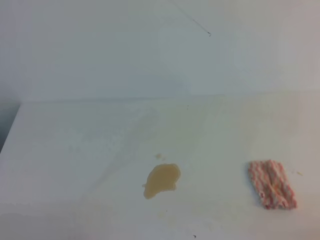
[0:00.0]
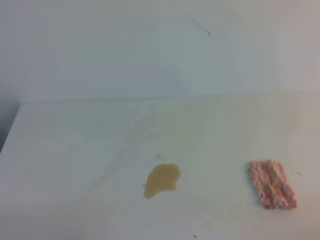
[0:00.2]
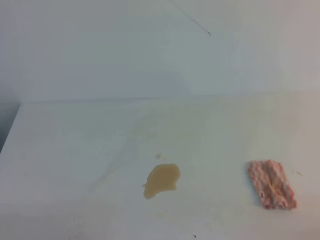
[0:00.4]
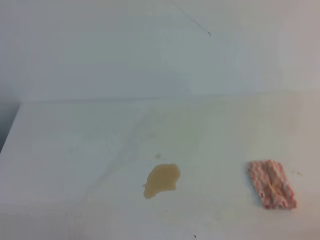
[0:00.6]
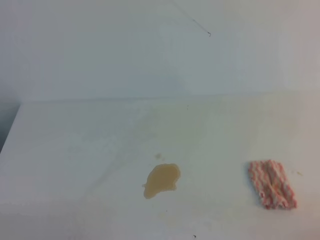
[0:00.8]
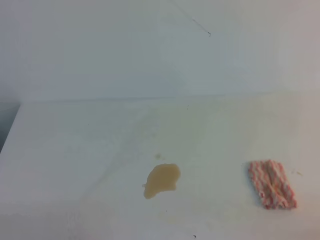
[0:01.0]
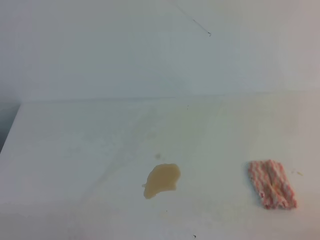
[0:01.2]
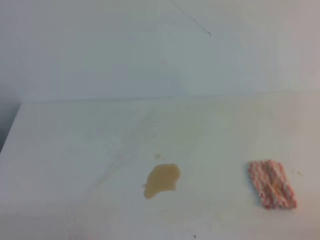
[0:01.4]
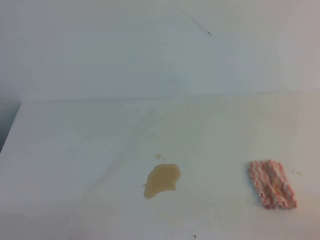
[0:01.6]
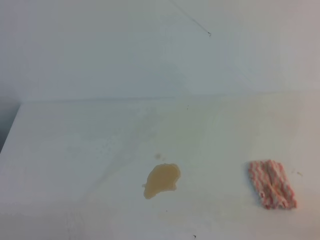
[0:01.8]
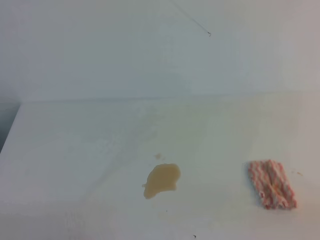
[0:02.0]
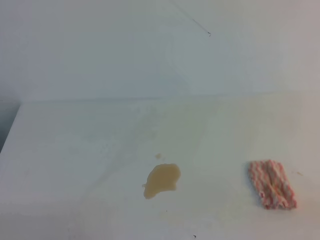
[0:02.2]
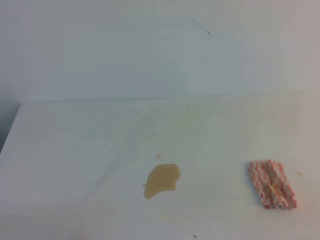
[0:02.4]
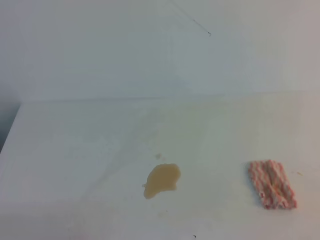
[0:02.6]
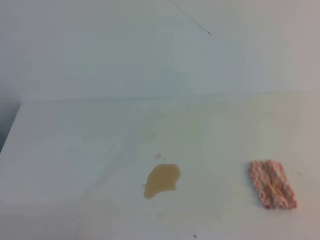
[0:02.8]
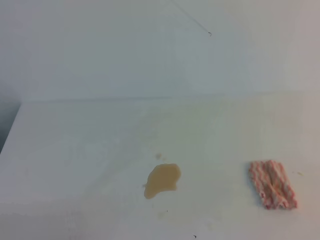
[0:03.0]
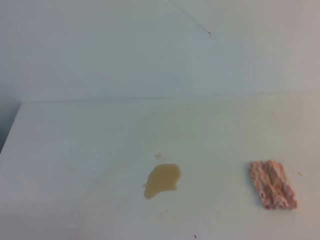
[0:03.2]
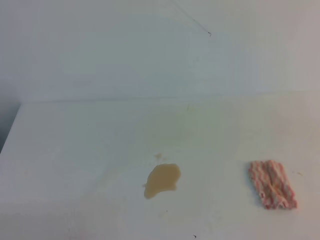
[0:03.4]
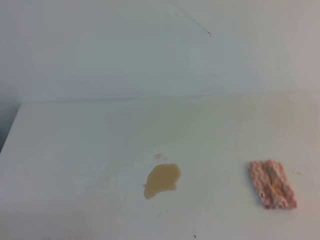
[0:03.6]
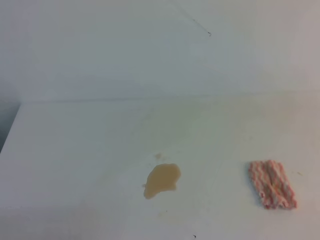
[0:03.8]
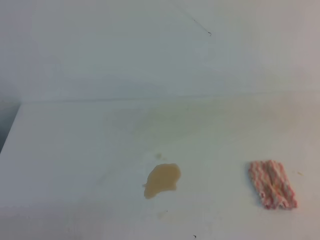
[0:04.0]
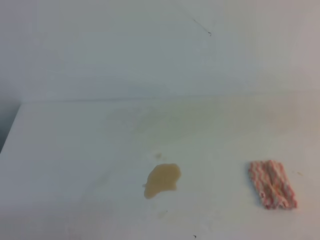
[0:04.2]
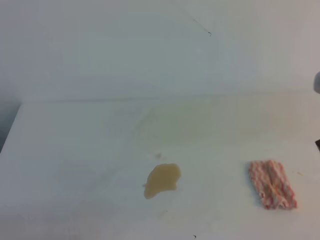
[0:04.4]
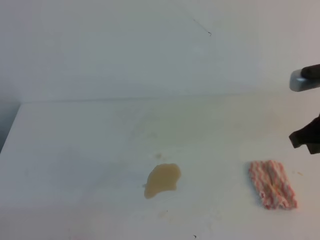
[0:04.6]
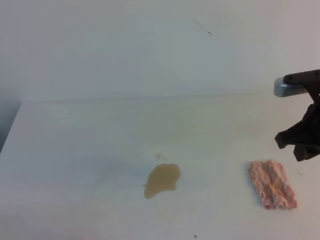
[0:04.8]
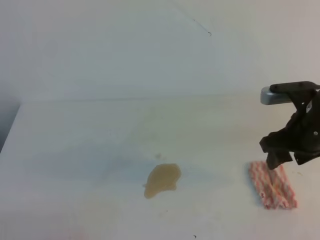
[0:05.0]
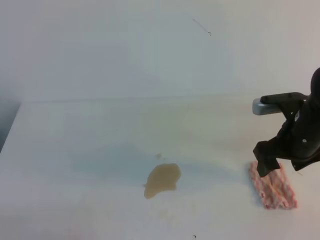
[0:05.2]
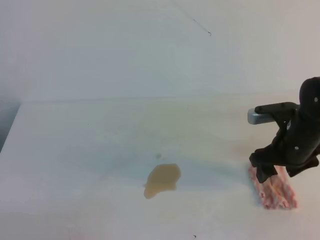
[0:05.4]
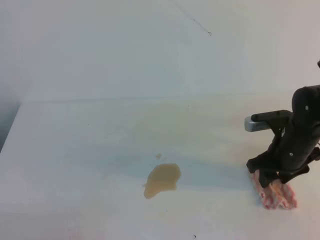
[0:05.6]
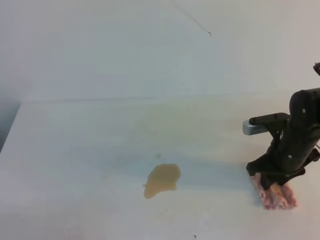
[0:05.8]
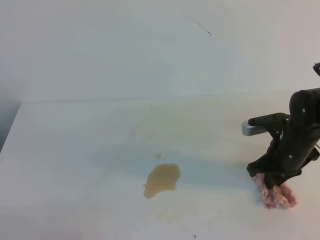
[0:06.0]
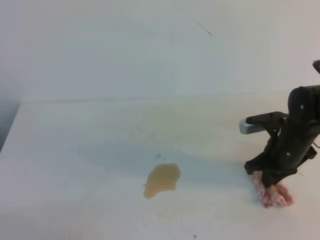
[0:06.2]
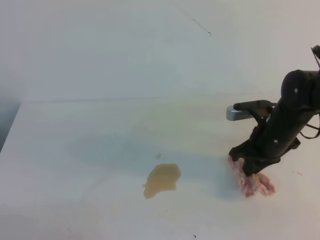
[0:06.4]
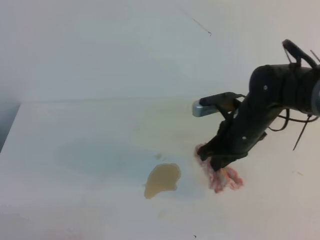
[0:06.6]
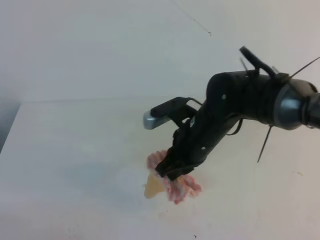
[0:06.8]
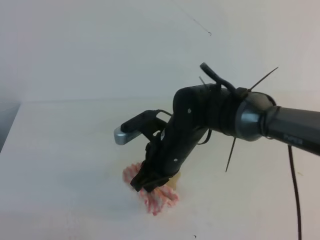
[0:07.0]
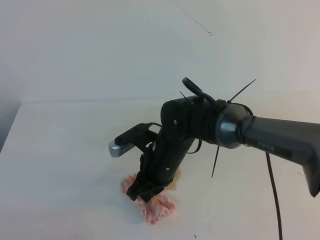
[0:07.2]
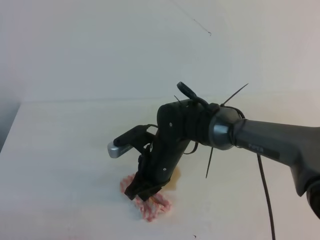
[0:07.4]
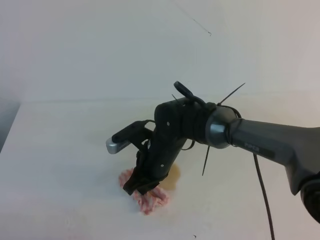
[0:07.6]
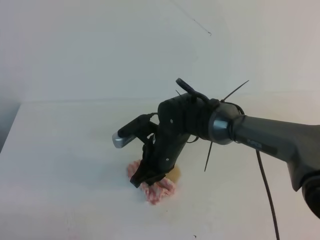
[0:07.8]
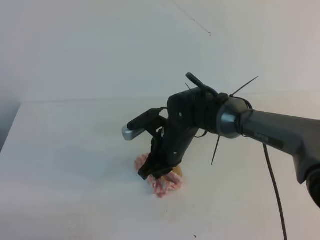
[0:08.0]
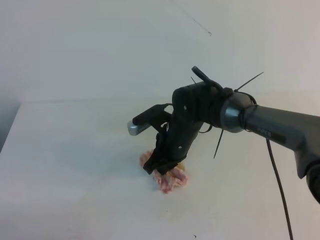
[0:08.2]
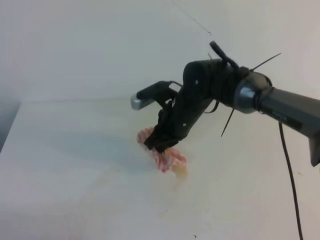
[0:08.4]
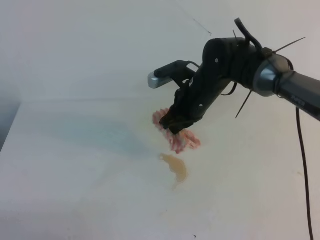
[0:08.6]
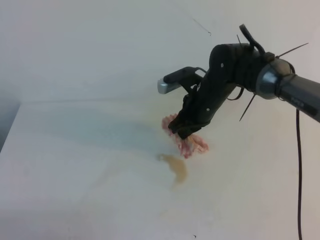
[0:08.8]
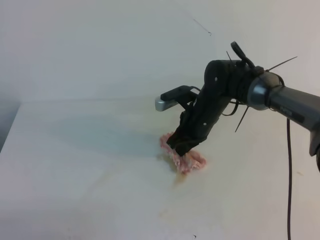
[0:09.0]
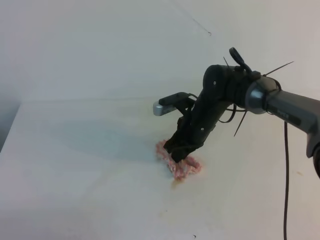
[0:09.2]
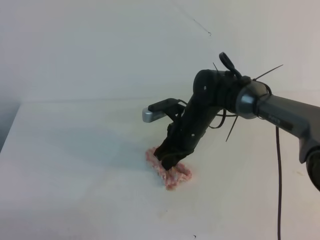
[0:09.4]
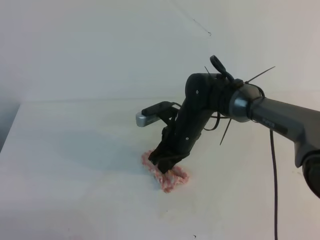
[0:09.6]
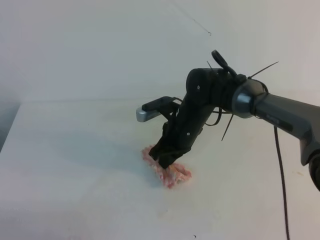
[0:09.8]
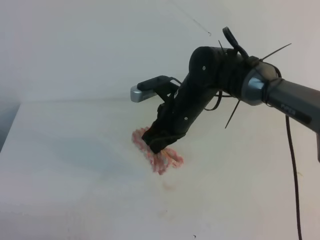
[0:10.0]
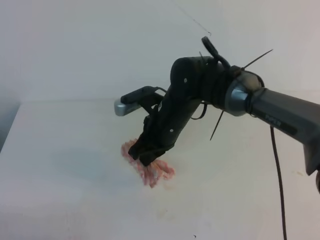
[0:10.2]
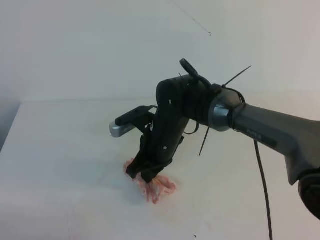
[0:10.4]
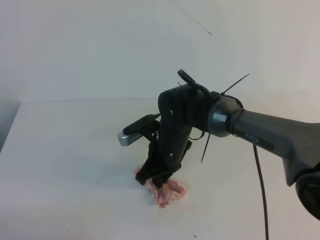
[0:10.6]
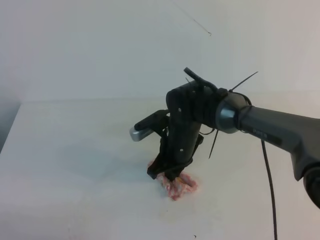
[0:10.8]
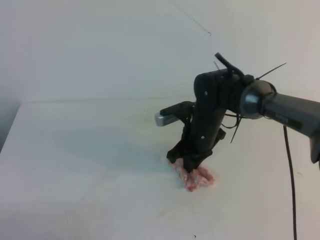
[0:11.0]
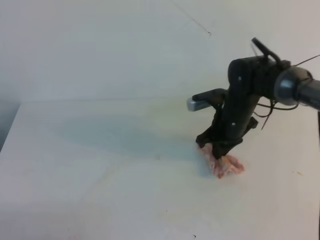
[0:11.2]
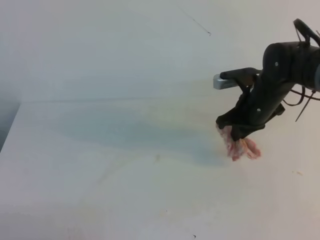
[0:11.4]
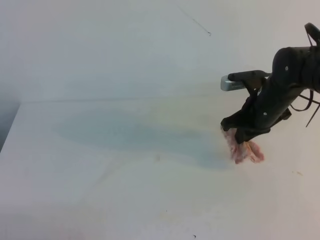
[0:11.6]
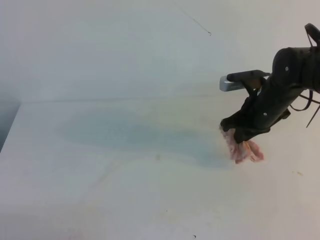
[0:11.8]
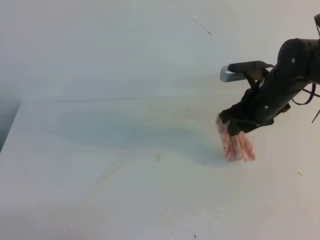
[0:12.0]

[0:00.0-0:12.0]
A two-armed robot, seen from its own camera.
0:00.0 to 0:01.6: The two grippers keep their place.
0:04.4 to 0:06.0: The right gripper heads downward and forward, covering approximately 20 cm, and opens, then closes once more.
0:06.0 to 0:07.6: The right gripper goes roughly 25 cm to the left.
0:07.6 to 0:09.0: The right gripper travels forward and to the right by roughly 10 cm.
0:09.0 to 0:10.4: The right gripper heads to the left and backward, covering about 10 cm.
0:10.4 to 0:12.0: The right gripper moves to the right, approximately 20 cm, and opens up.

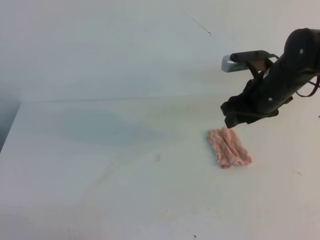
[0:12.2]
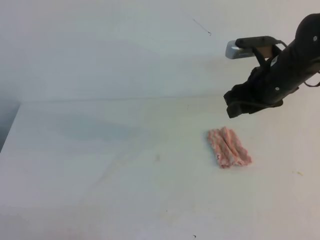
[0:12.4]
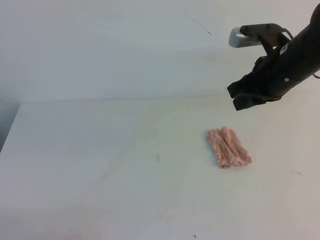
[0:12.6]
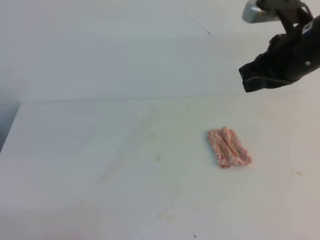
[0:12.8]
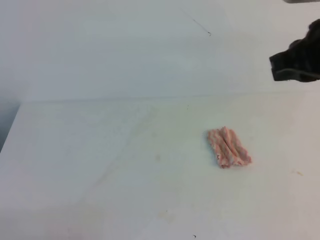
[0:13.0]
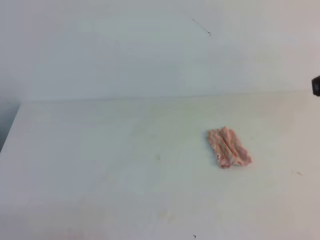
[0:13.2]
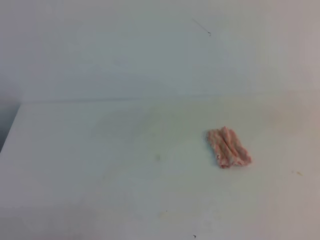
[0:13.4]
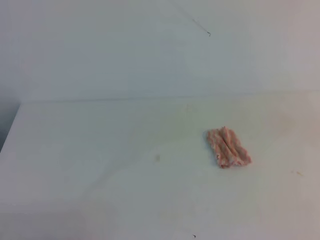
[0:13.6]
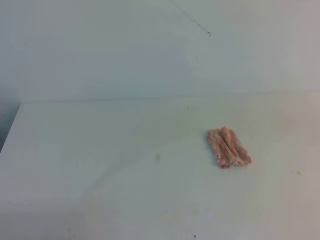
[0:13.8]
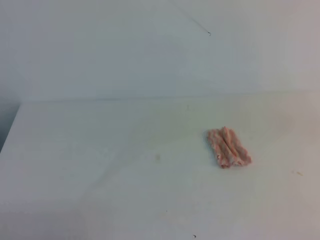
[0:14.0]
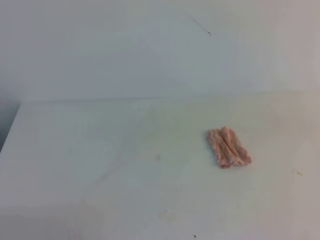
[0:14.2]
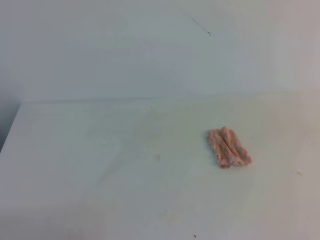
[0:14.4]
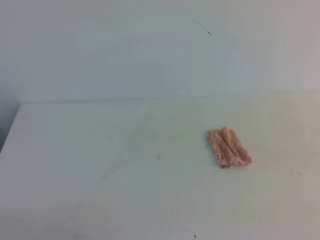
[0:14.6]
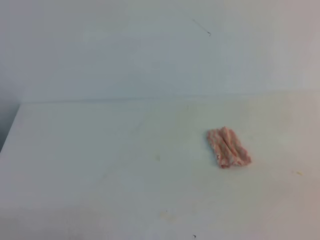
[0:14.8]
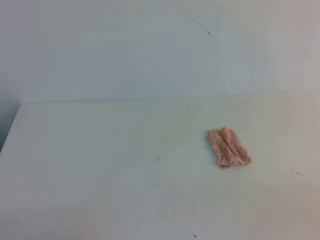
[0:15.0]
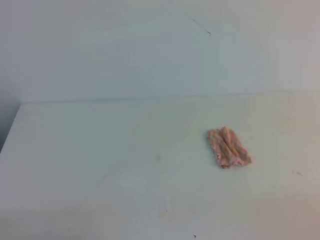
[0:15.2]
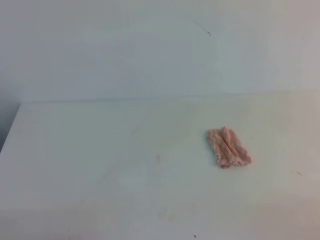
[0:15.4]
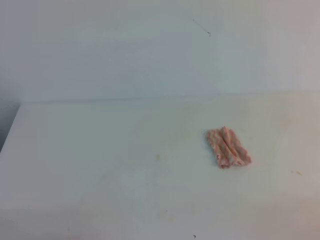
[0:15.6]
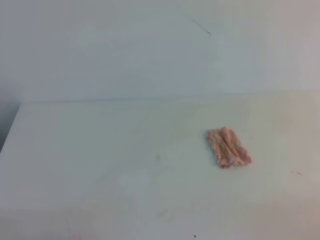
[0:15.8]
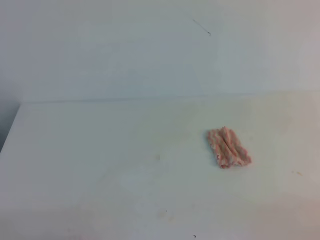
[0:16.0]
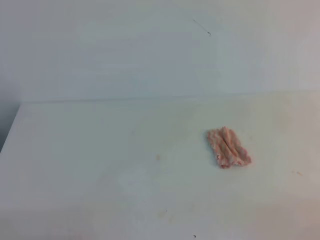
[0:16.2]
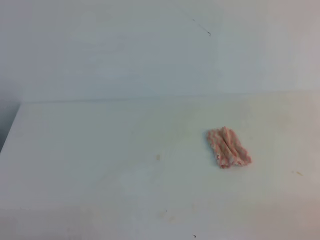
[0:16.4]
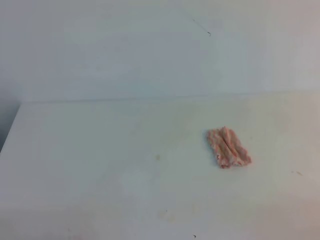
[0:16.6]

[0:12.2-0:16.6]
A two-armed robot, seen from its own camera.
0:12.2 to 0:13.6: The right gripper is displaced backward and upward by roughly 30 cm, and closes.
